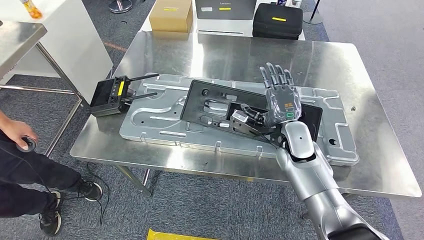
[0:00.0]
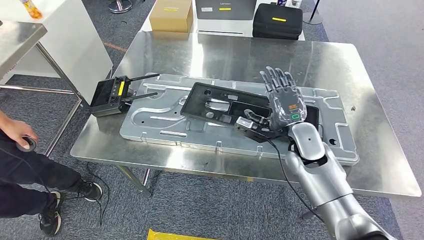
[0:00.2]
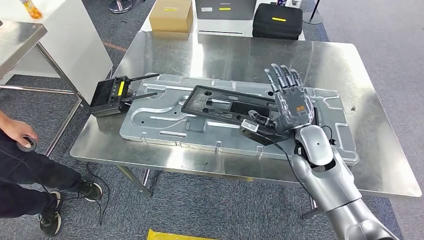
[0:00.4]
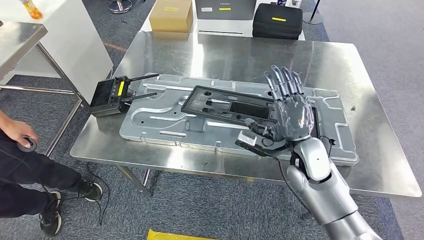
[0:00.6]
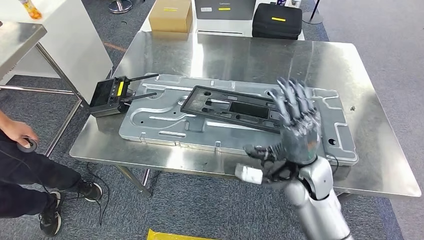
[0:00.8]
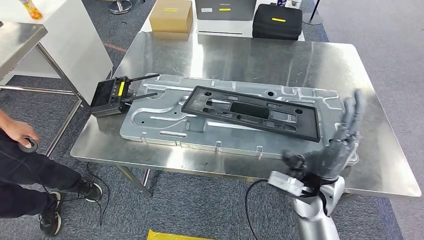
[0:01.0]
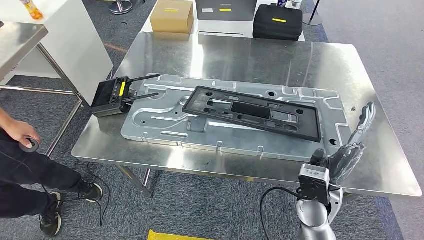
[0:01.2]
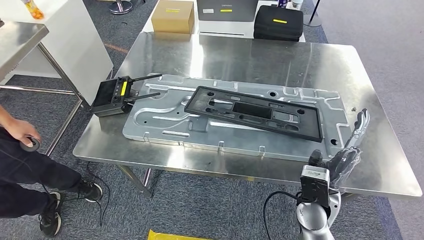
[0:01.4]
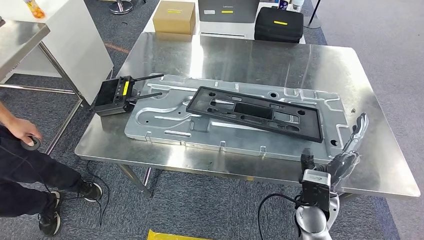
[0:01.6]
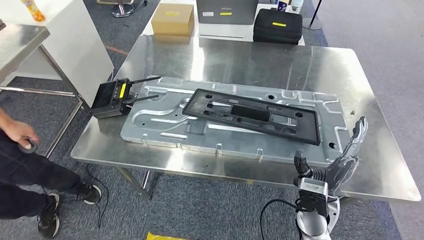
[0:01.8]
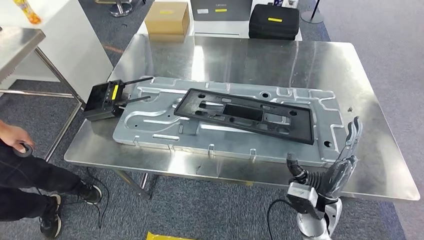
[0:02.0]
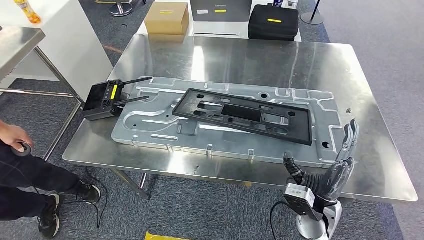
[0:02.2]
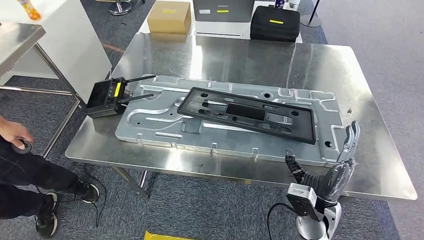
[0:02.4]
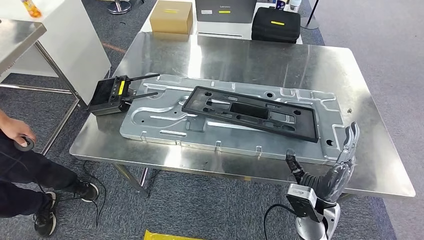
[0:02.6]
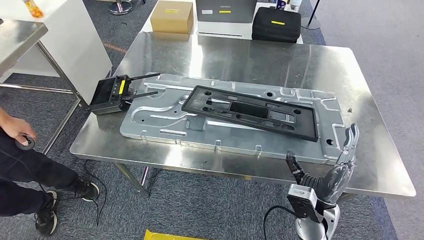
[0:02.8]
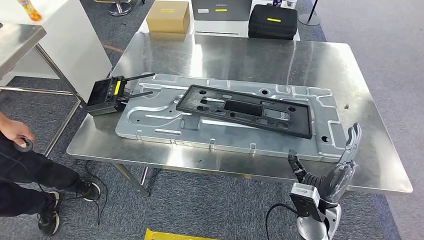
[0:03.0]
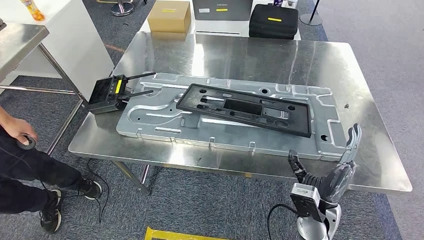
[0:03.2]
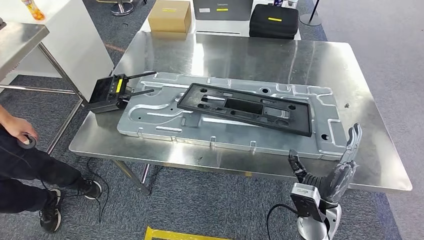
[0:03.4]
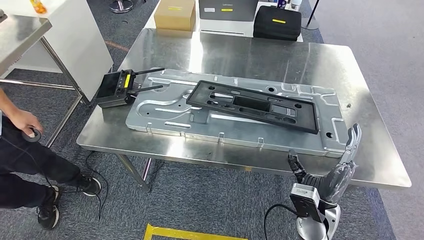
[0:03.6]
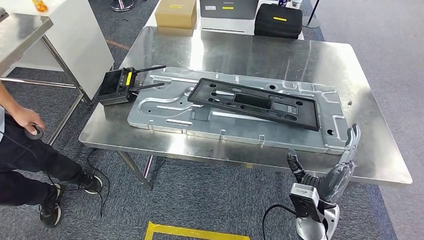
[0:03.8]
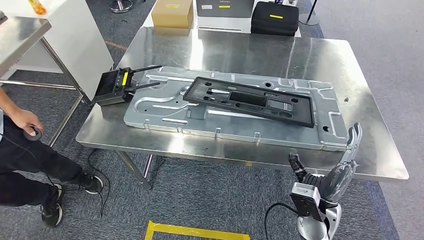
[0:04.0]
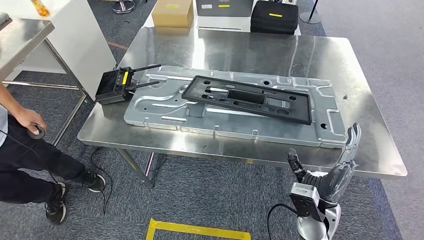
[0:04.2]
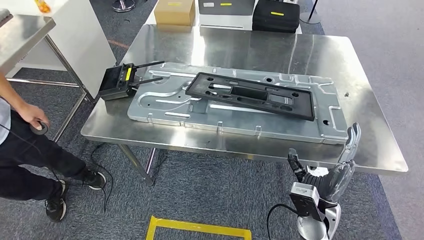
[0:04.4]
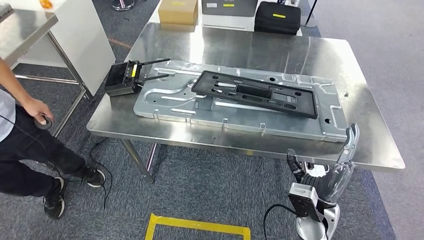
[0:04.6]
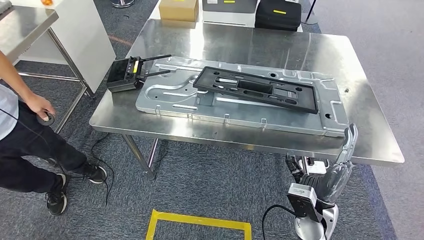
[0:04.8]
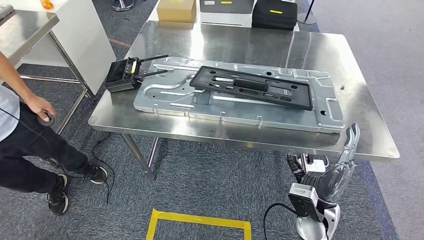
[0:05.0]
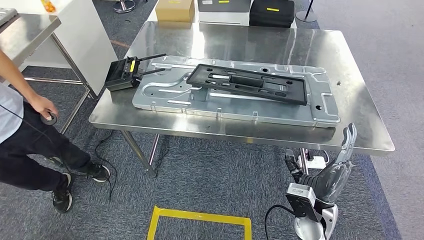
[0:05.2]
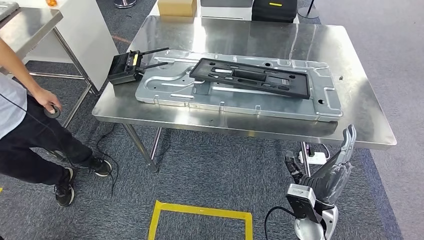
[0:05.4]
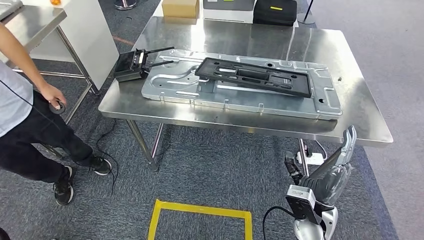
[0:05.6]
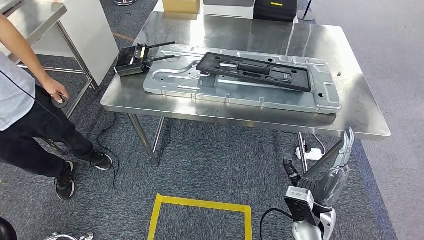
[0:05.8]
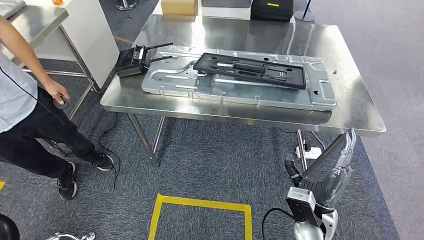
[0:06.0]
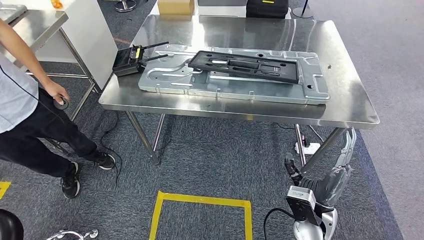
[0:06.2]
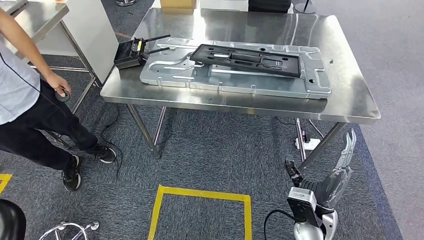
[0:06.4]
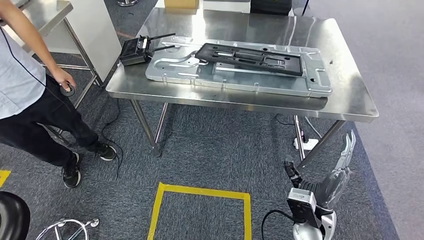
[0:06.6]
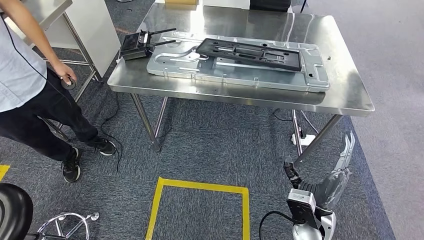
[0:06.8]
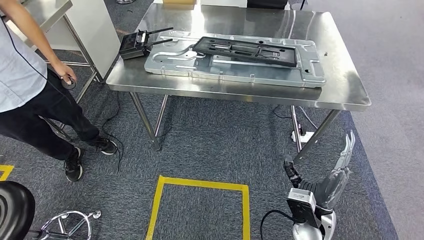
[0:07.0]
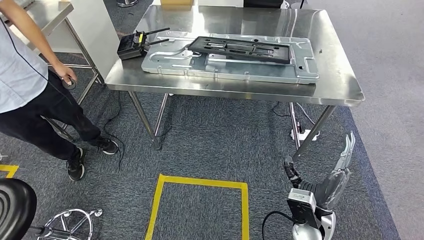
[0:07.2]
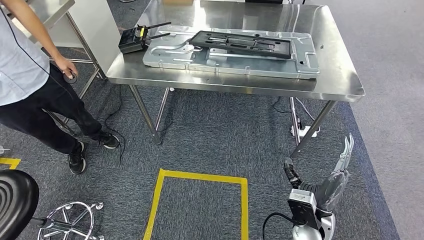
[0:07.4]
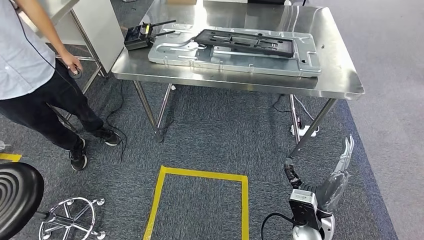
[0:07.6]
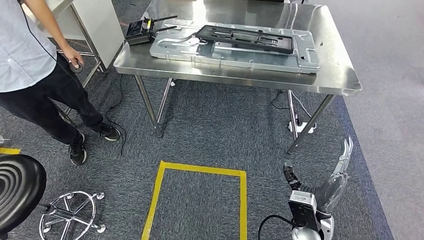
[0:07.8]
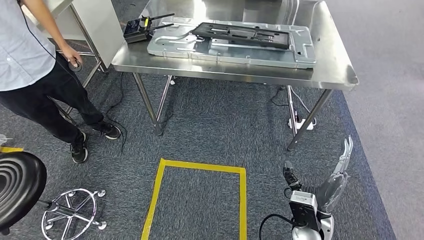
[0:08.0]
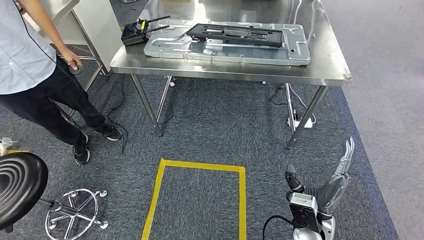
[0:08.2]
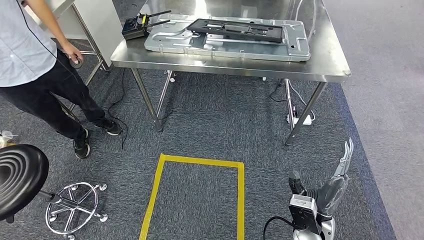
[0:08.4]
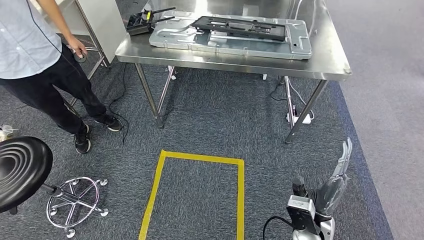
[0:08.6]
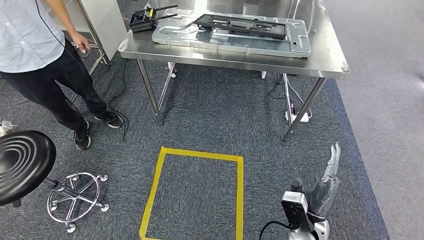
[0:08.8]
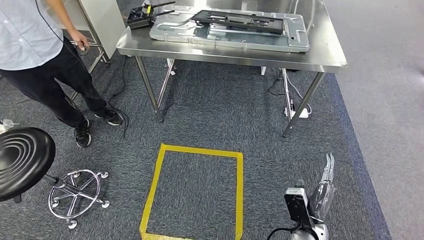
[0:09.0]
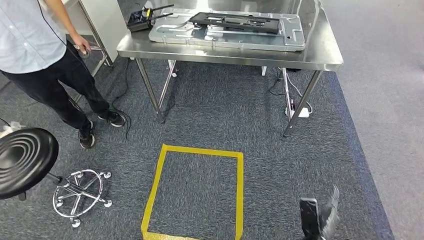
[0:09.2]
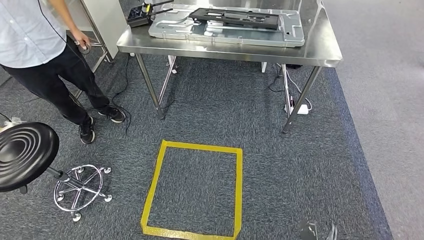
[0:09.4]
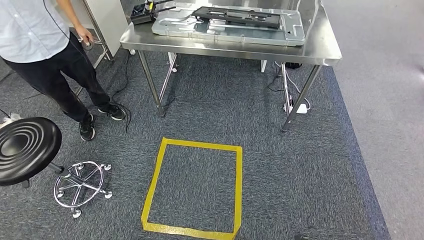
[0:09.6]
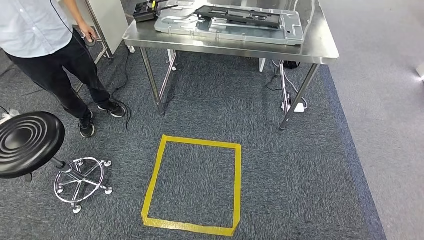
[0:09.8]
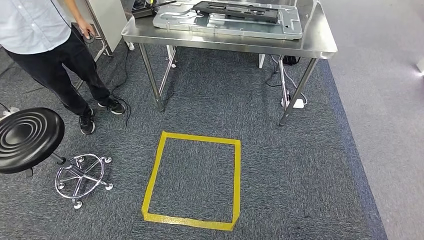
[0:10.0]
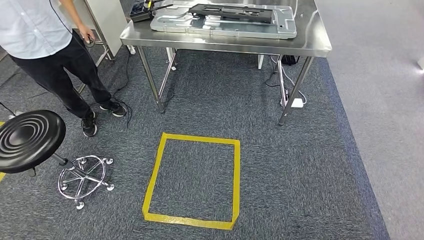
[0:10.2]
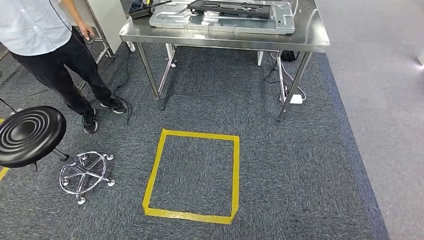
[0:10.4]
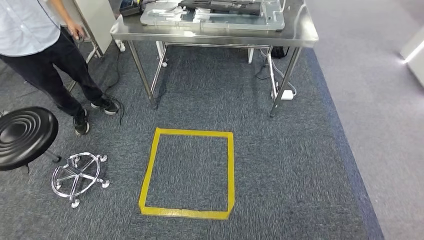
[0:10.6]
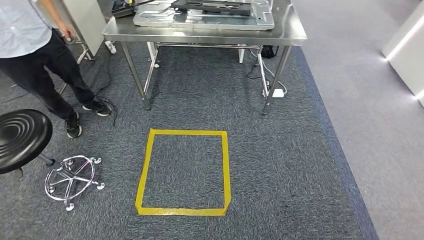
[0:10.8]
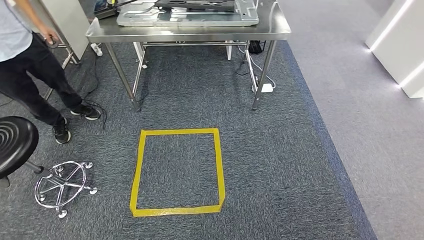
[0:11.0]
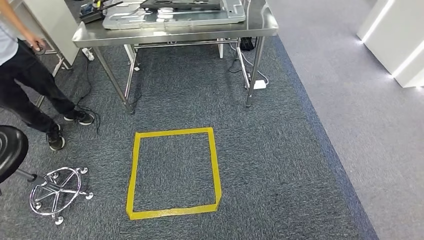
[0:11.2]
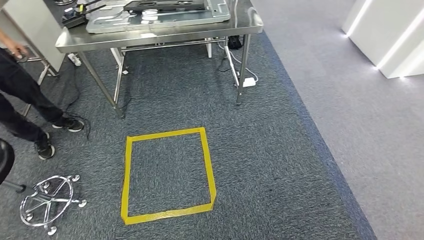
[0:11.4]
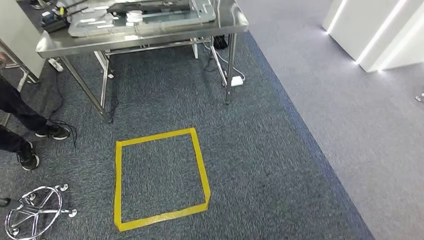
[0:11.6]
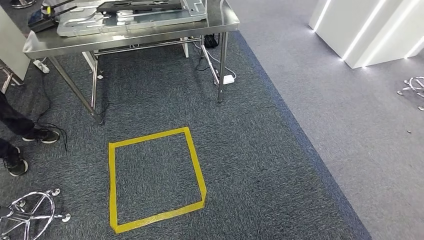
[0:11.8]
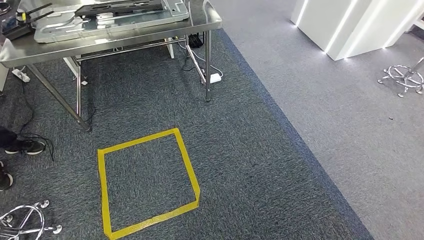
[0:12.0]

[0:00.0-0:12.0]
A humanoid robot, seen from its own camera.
0:01.6 to 0:03.0: The hands stay close to where they were, moving slightly.

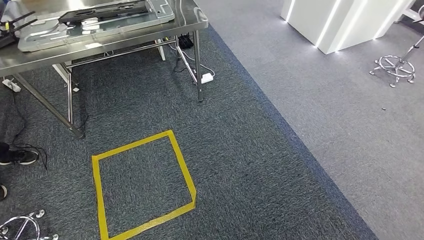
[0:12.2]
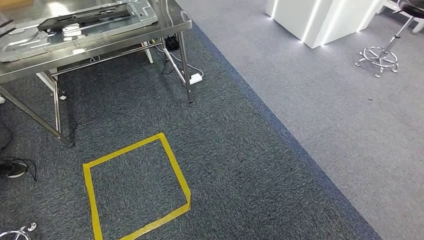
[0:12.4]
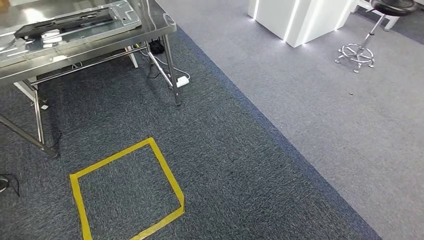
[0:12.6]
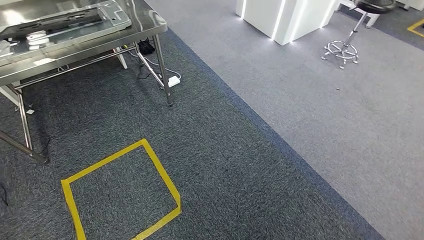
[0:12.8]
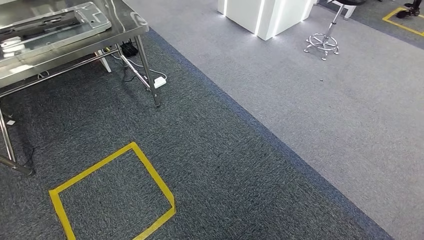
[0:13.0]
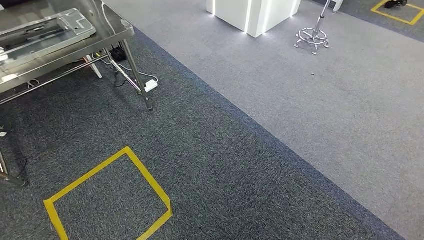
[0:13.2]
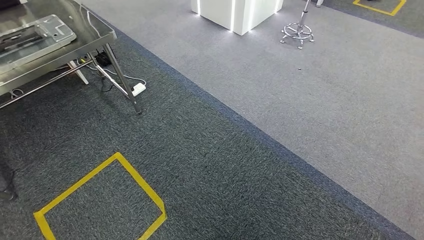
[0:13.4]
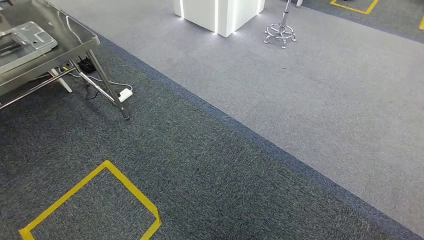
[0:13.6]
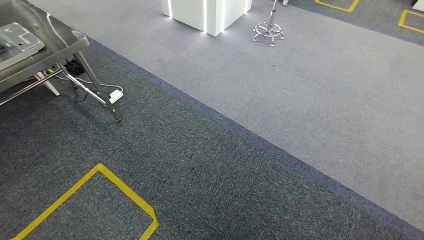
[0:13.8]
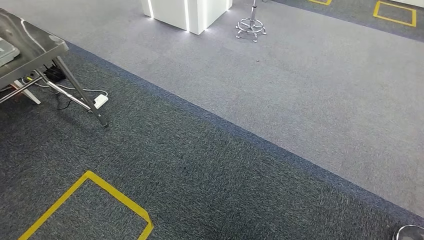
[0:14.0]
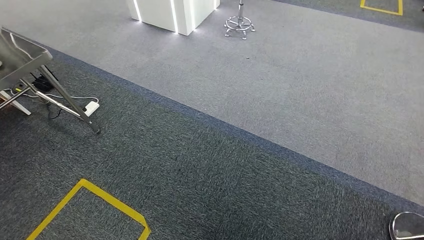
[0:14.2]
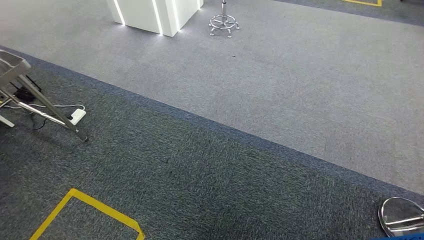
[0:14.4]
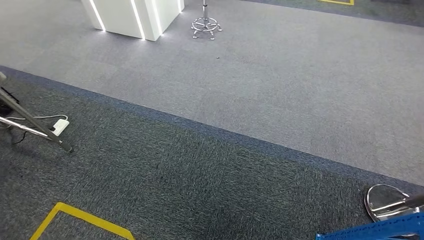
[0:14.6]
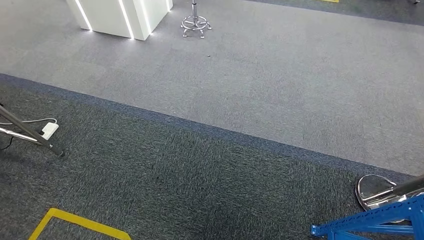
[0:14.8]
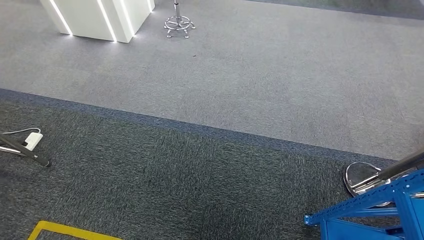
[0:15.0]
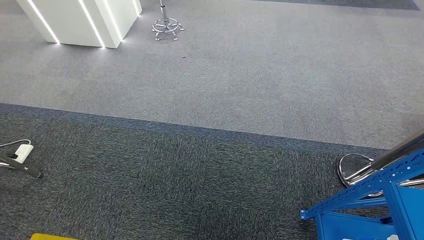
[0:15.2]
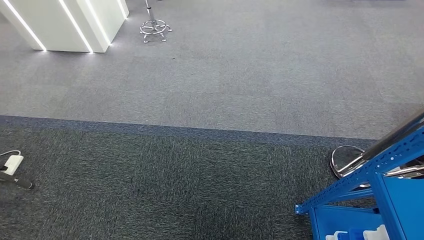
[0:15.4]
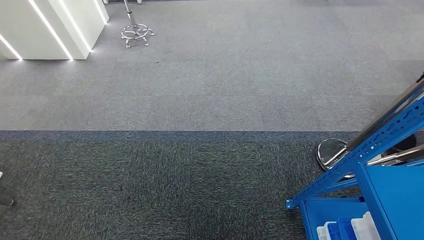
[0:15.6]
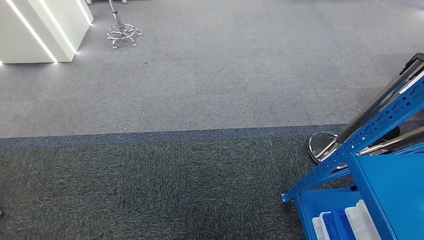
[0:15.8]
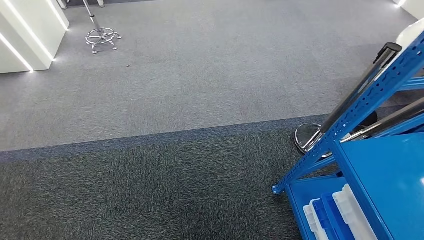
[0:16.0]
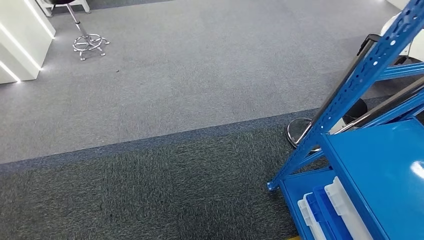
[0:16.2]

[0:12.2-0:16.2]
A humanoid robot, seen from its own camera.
Step, 0:12.2 to 0:16.2: Move to the initial position of the shelf.
